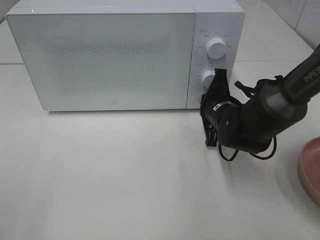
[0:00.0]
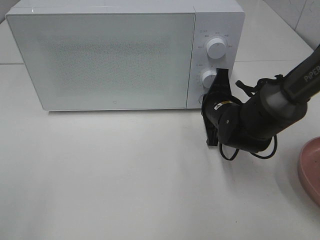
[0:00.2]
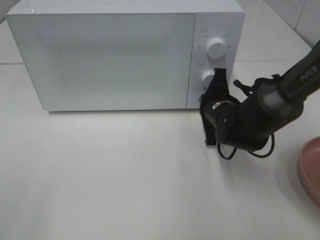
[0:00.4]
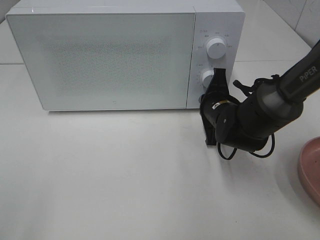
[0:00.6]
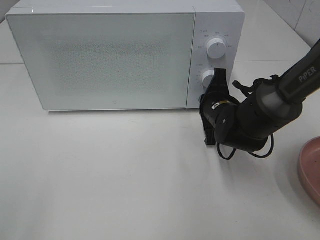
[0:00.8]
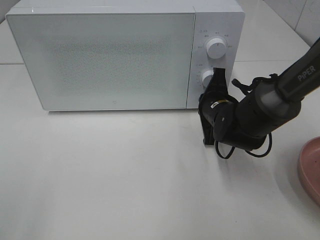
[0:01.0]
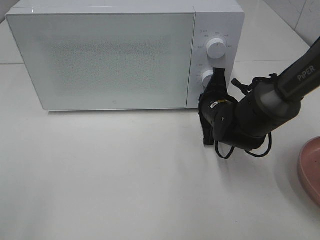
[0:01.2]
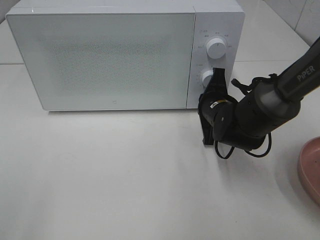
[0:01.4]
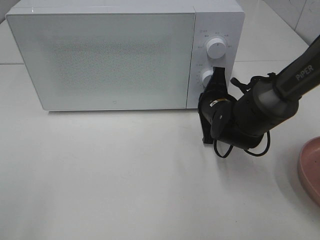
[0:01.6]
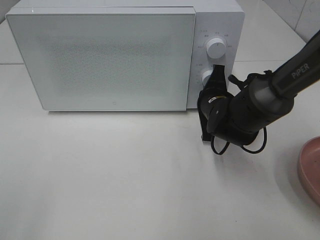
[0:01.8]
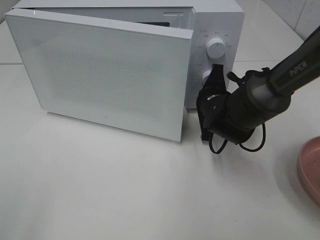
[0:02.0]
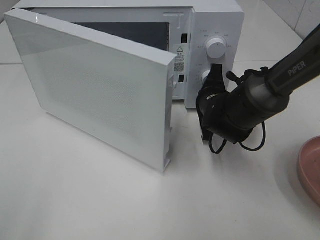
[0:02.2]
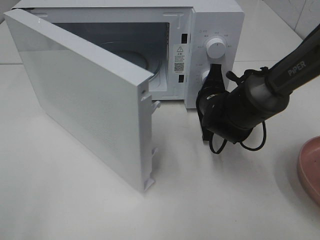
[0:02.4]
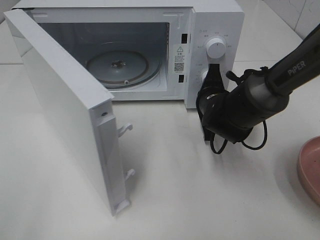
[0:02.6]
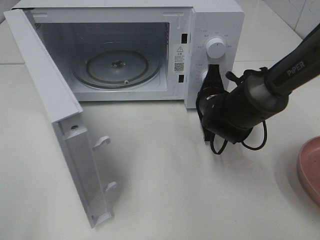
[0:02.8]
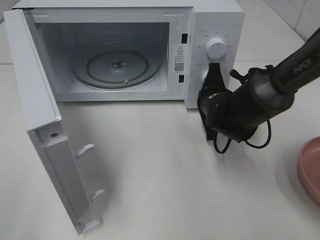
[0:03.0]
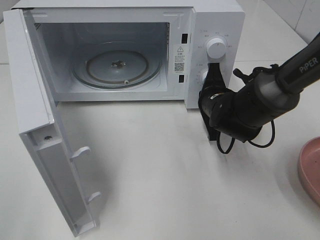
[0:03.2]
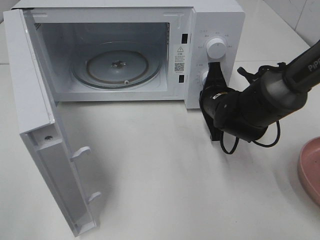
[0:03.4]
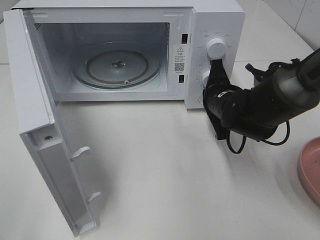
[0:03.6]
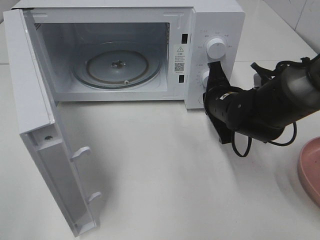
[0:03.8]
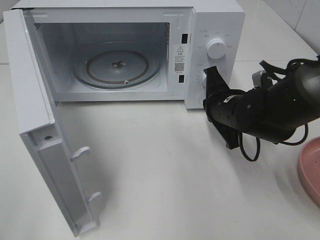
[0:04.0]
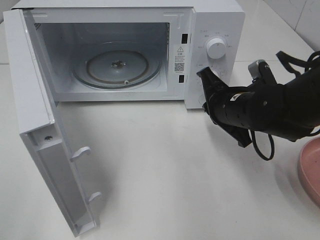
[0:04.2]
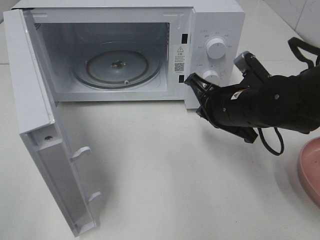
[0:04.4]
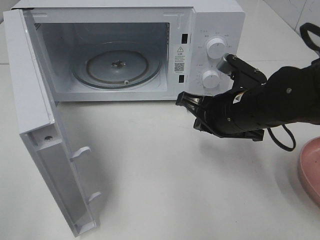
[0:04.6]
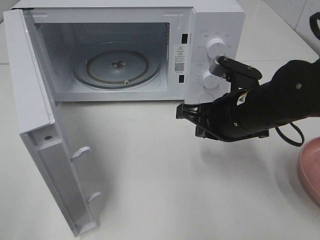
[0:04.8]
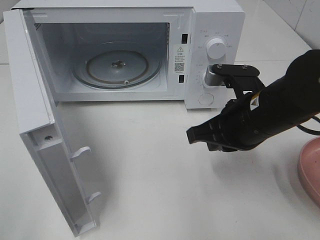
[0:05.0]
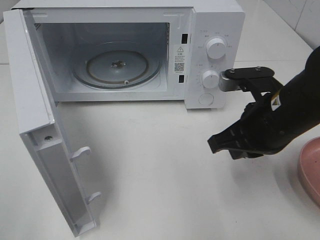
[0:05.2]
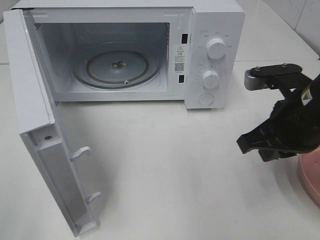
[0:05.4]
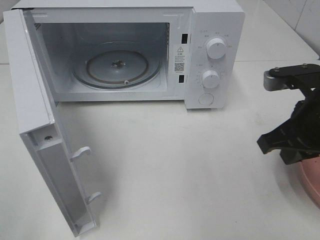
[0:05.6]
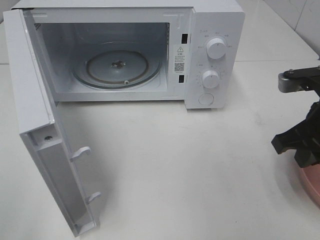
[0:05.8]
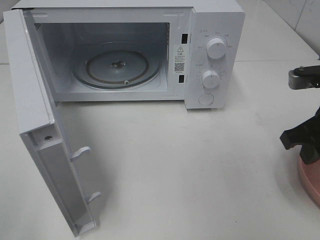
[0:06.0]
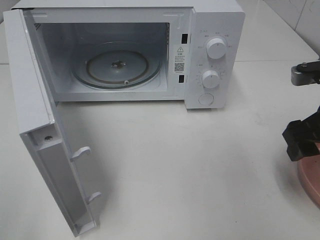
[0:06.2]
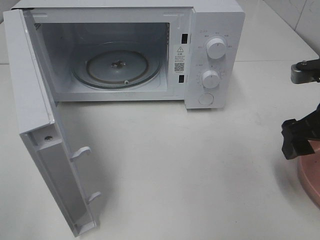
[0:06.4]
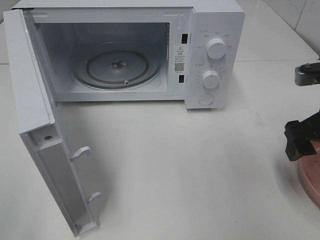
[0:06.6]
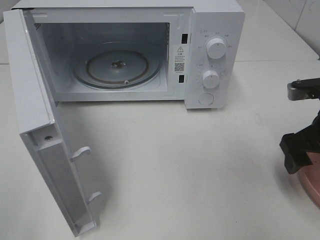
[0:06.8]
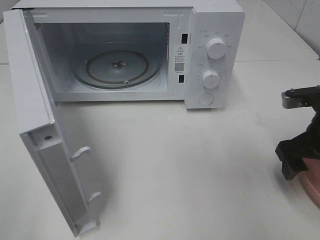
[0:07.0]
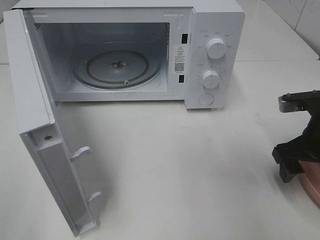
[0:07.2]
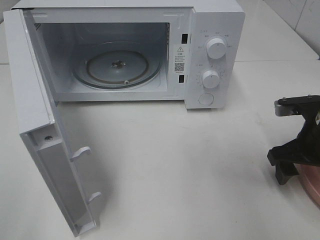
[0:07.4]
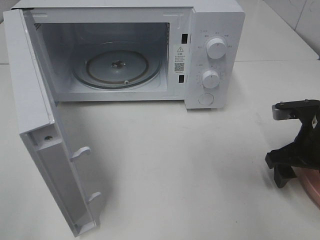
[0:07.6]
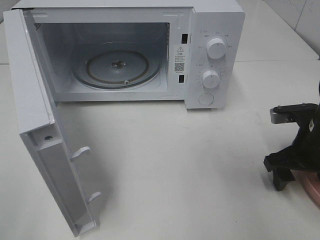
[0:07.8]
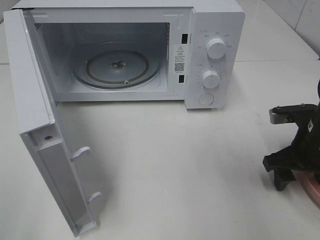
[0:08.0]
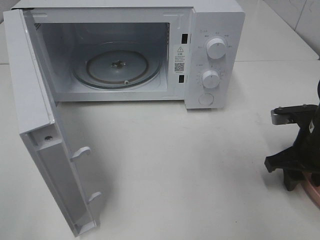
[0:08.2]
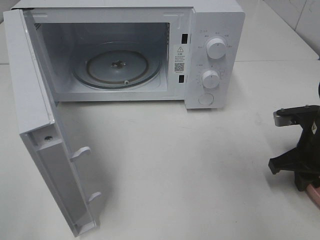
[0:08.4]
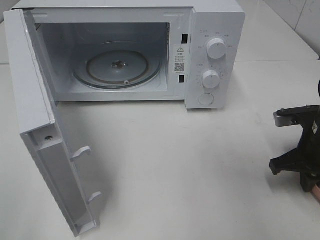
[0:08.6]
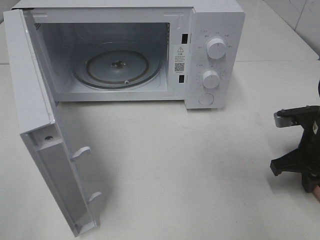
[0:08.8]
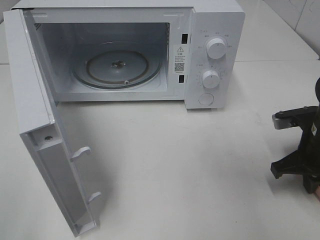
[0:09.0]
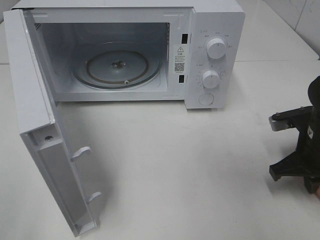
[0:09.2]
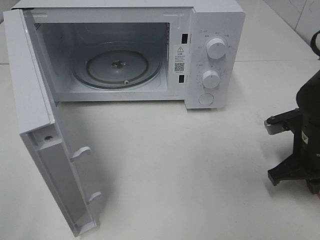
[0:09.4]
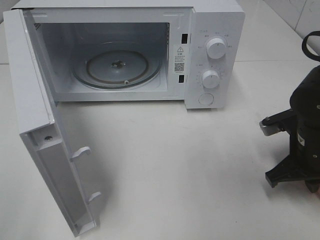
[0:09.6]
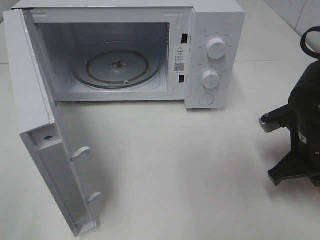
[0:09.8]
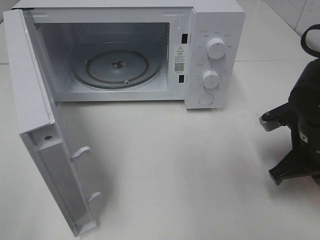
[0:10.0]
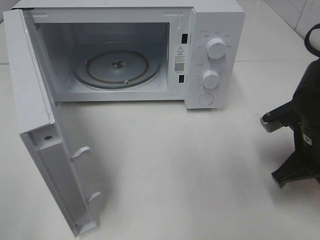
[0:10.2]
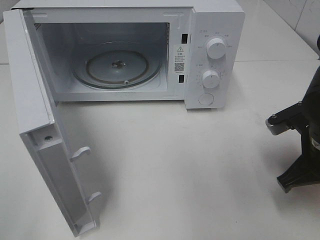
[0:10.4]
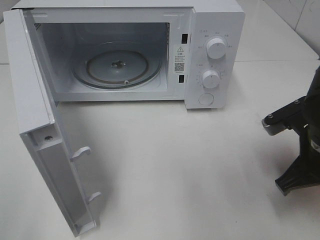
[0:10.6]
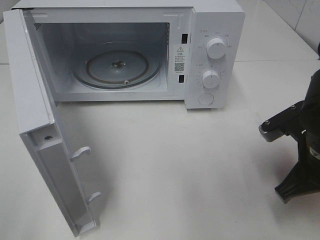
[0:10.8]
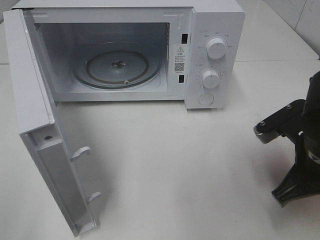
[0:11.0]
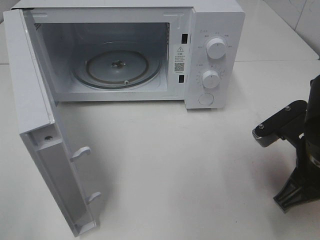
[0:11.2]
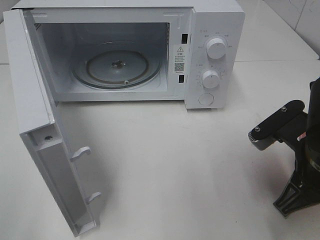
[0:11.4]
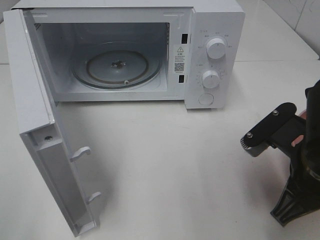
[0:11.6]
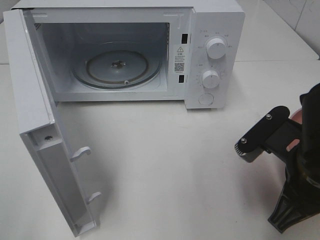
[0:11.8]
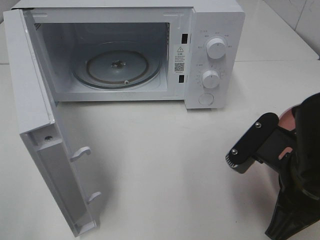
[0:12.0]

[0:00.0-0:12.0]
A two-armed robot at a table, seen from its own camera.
Task of the whole recording: Heat the burger.
Step, 0:00.0 to 0:03.6: Right hand: press the switch.
Step, 0:03.8 to 0:09.0: Right hand: grab the plate with the hamburger.
0:00.0 to 0:01.6: Both grippers stay put.
0:03.0 to 0:04.4: The right gripper goes approximately 10 cm backward and upward.
0:04.4 to 0:06.0: The right gripper travels to the right, backward and upward by approximately 15 cm, and opens up.
0:06.0 to 0:07.6: The right gripper shifts roughly 10 cm downward, and opens its fingers.
0:07.6 to 0:09.0: The right gripper closes its fingers.
0:09.0 to 0:10.4: The right gripper ends up some 5 cm from where it was.
0:10.4 to 0:12.0: The right gripper moves backward and to the left, about 10 cm.

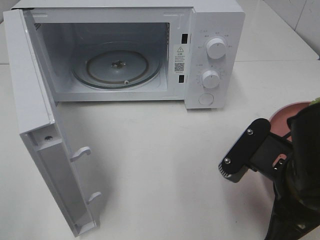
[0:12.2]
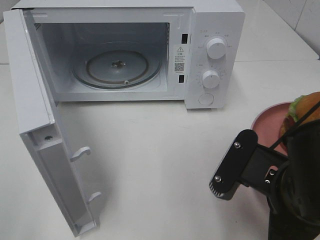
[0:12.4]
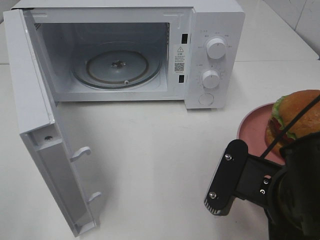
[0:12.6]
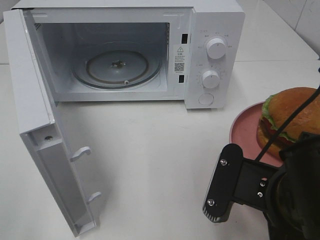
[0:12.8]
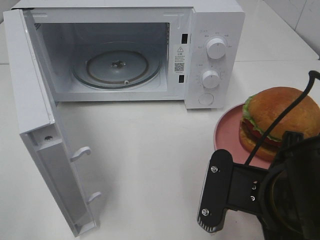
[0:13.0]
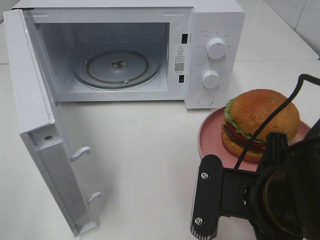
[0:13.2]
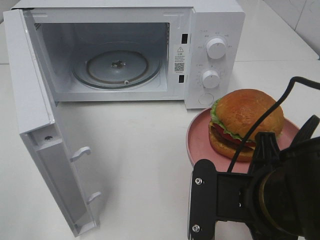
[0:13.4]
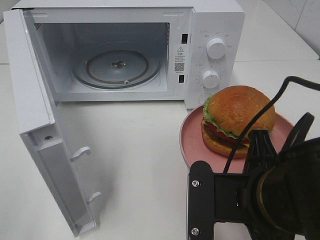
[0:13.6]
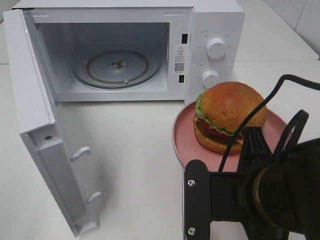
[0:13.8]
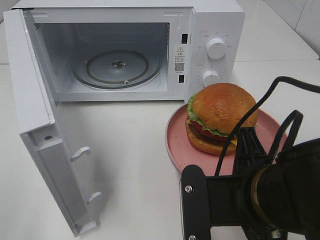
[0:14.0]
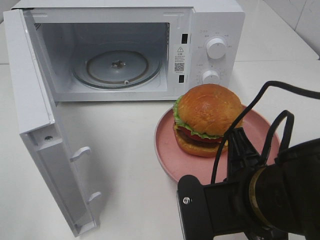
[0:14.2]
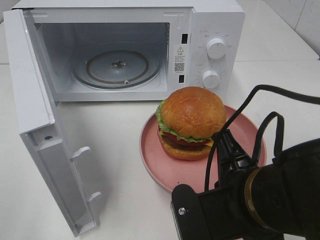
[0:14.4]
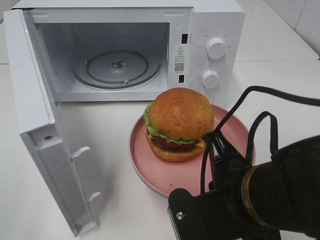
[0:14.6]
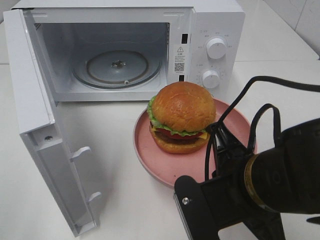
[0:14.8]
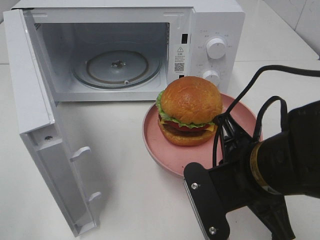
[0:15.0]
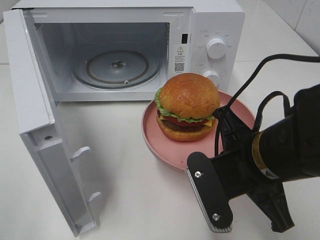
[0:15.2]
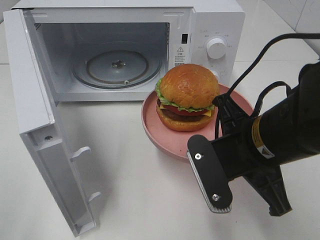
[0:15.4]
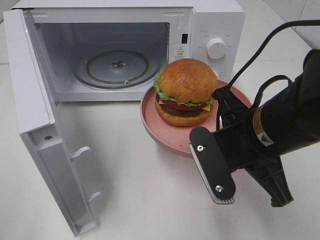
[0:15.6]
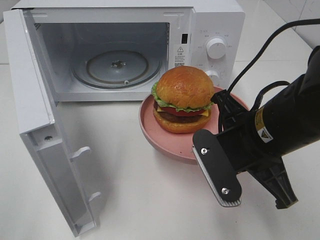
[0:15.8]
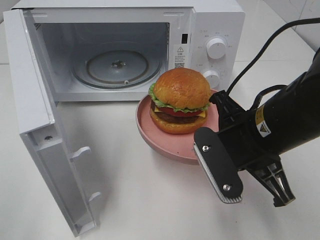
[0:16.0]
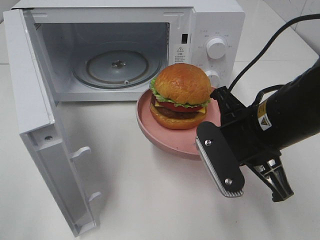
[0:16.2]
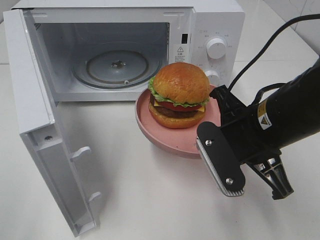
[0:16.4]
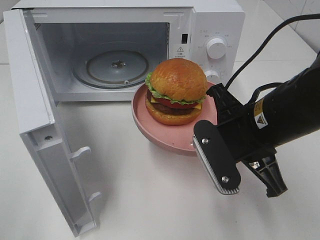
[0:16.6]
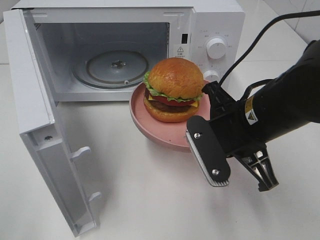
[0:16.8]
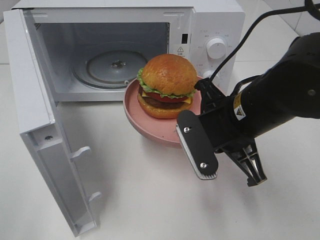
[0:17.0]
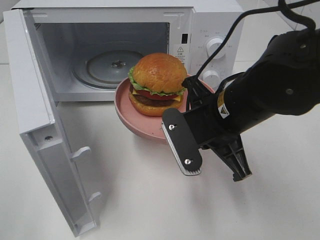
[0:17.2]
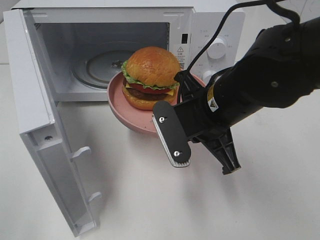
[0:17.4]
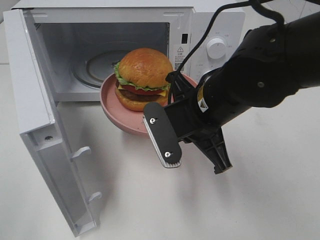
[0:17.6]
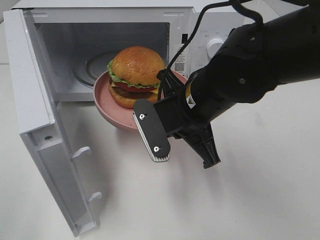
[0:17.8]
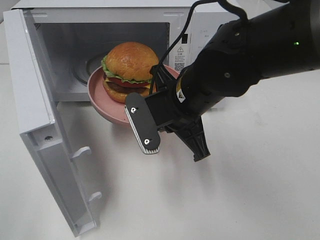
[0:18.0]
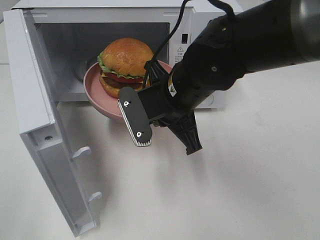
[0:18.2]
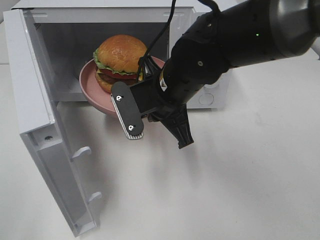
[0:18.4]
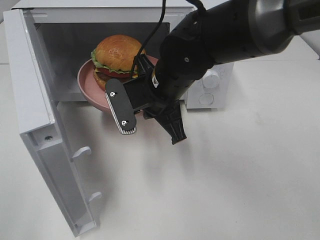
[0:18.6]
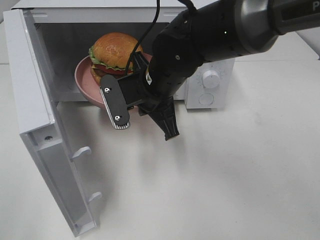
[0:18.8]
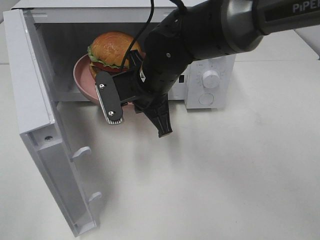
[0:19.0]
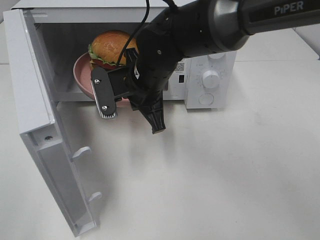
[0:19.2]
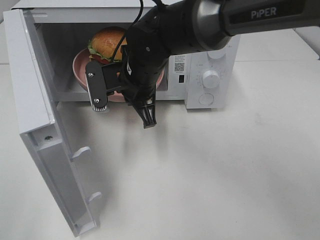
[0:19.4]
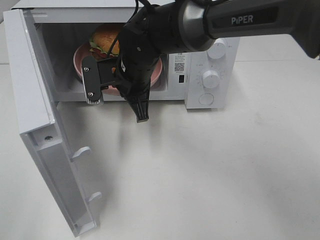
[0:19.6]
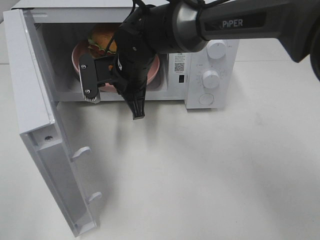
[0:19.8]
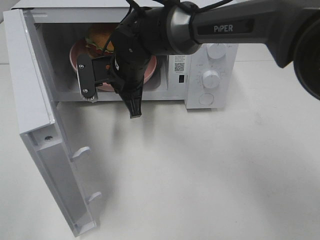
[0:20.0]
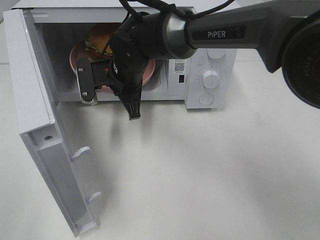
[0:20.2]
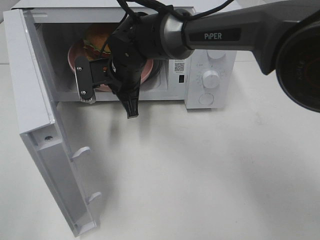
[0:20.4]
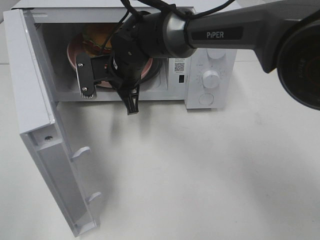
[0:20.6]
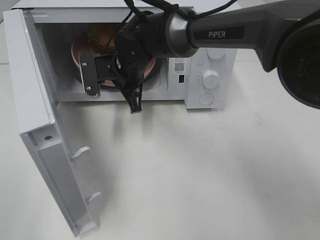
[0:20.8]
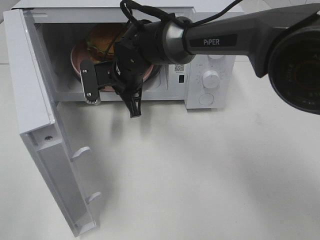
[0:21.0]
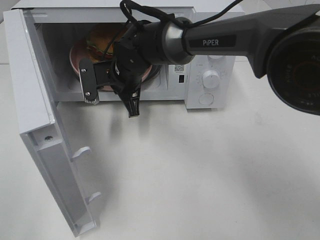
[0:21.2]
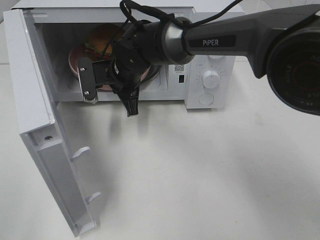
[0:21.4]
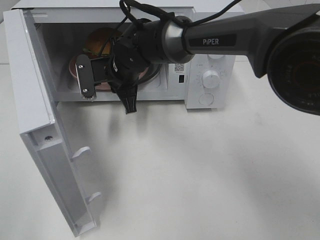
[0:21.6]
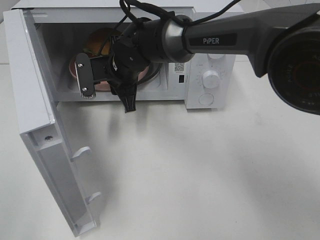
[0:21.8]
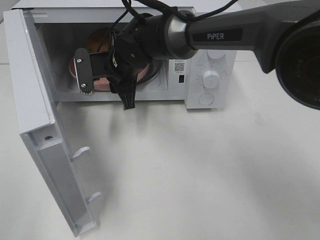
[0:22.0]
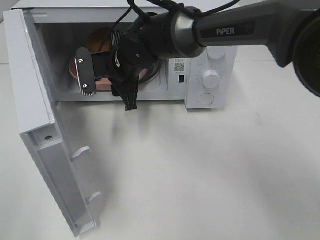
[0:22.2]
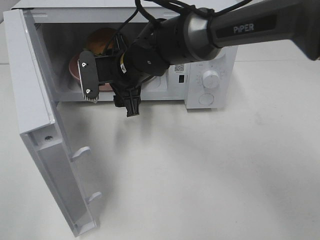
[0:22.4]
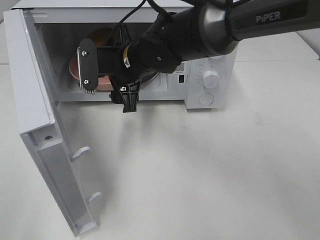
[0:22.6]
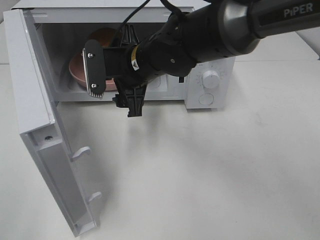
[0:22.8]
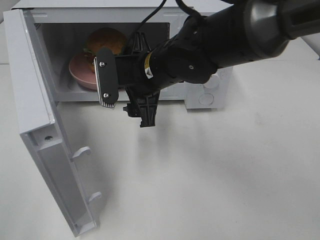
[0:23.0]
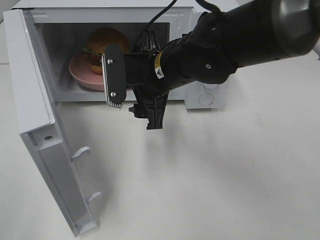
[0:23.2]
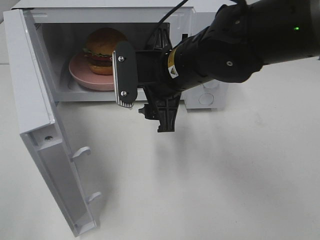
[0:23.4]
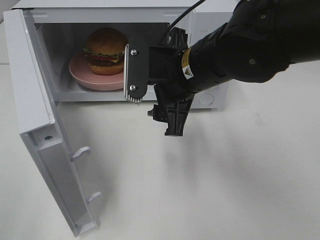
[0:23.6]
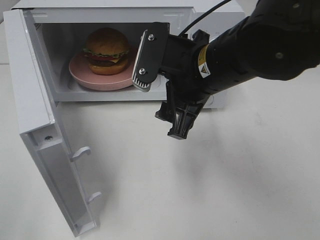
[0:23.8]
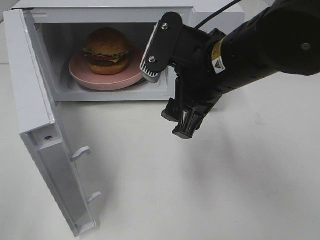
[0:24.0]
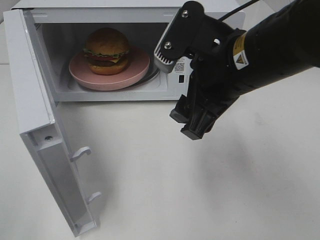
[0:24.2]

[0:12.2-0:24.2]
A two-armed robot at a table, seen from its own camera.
Task of the whole recording: Heat the burger.
Step, 0:12.2 to 0:22.0: Right hand: place the plate in the microwave.
0:13.8 to 0:15.2: The right gripper heads forward, covering roughly 5 cm.
0:16.6 to 0:18.2: The right gripper goes roughly 10 cm to the left and forward.
0:18.2 to 0:19.8: The right gripper travels forward and to the left by about 10 cm.
0:19.8 to 0:21.2: The grippers stay close to where they were, moving slightly.
0:21.2 to 0:22.6: The right gripper ends up some 5 cm from where it was, and opens.
0:22.6 to 0:24.2: The right gripper is displaced backward, to the right and upward by roughly 20 cm.
